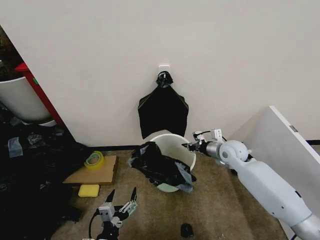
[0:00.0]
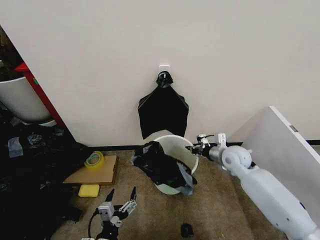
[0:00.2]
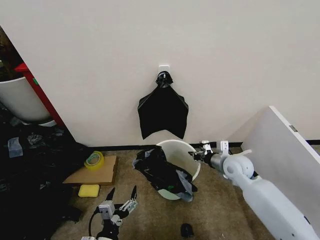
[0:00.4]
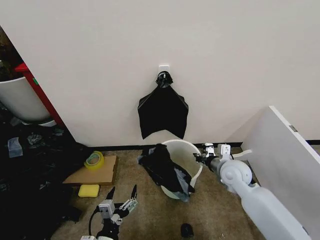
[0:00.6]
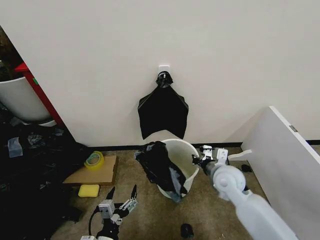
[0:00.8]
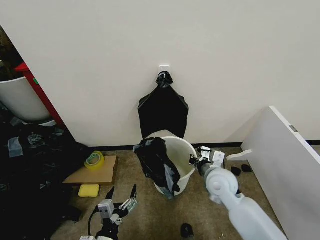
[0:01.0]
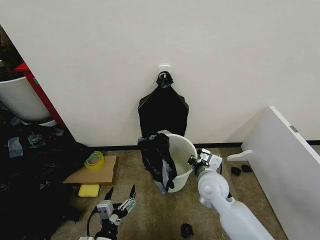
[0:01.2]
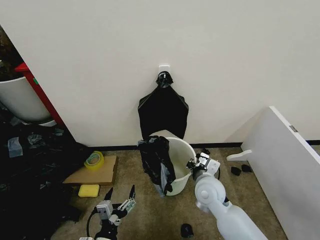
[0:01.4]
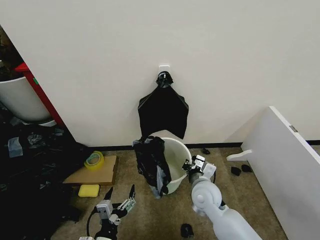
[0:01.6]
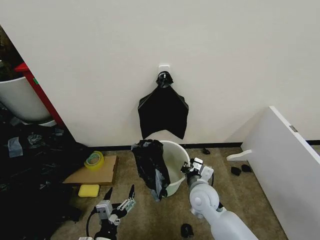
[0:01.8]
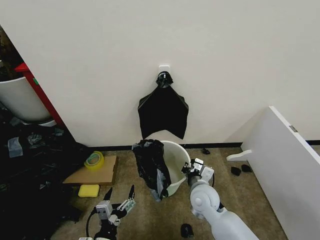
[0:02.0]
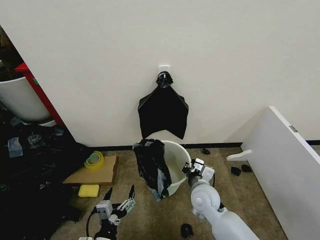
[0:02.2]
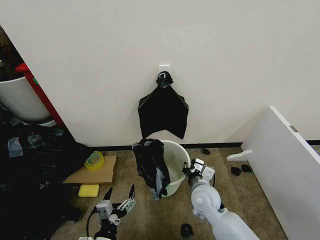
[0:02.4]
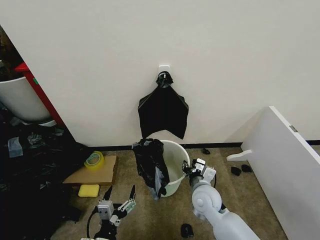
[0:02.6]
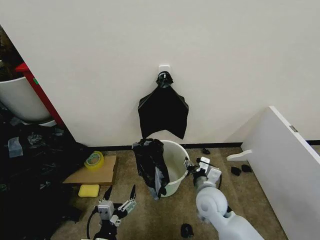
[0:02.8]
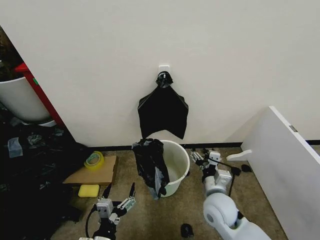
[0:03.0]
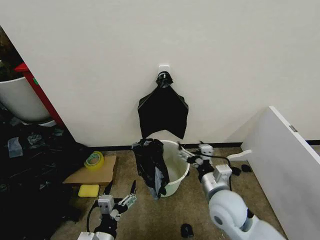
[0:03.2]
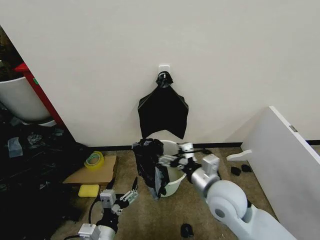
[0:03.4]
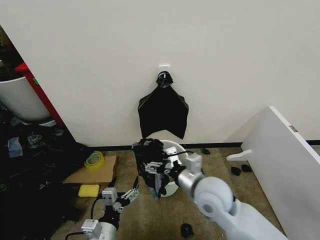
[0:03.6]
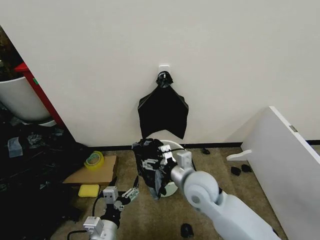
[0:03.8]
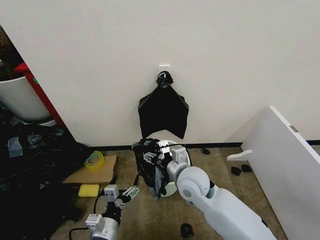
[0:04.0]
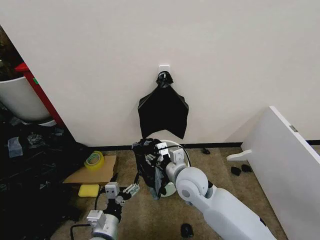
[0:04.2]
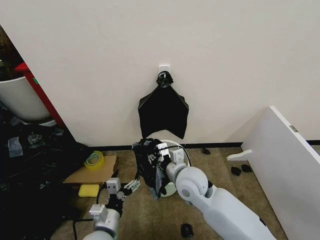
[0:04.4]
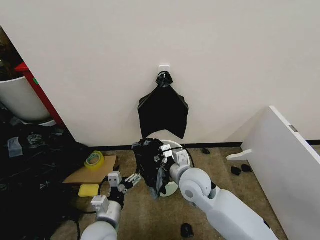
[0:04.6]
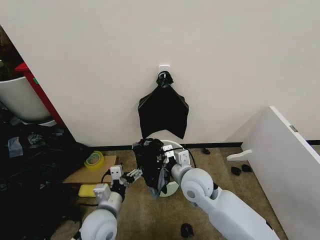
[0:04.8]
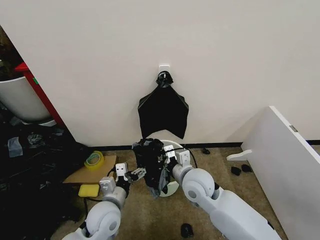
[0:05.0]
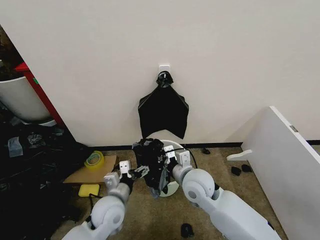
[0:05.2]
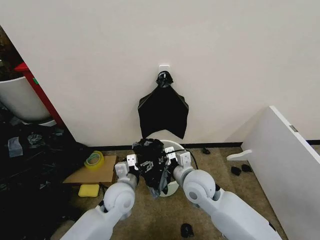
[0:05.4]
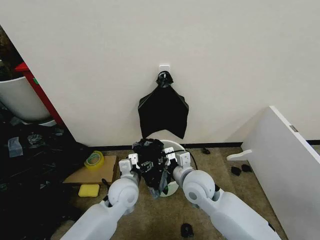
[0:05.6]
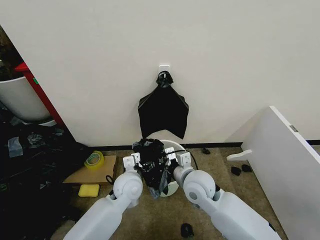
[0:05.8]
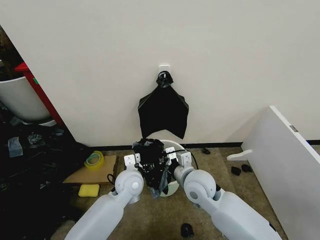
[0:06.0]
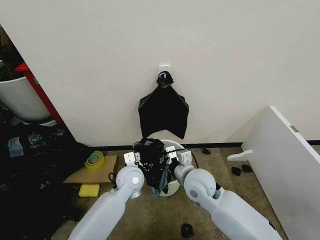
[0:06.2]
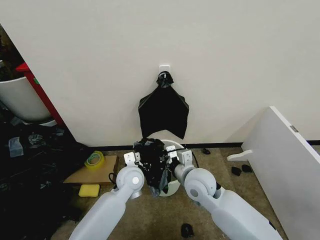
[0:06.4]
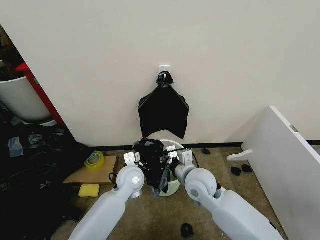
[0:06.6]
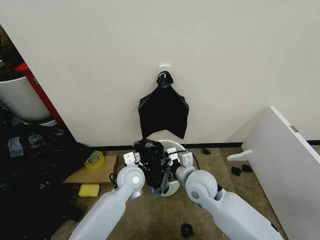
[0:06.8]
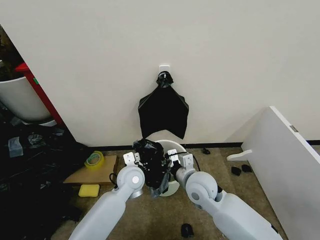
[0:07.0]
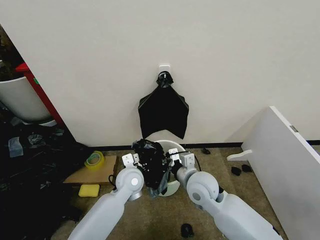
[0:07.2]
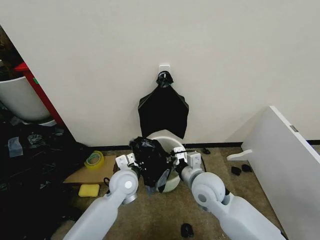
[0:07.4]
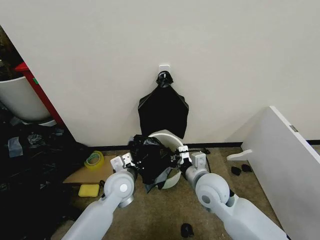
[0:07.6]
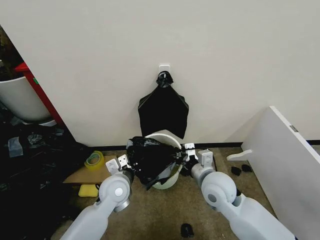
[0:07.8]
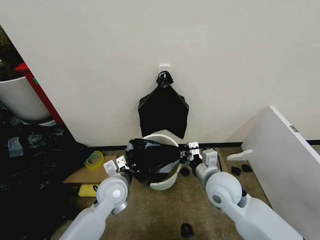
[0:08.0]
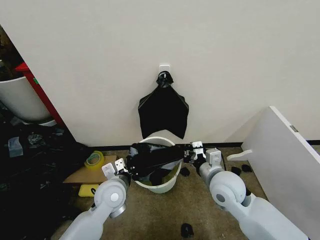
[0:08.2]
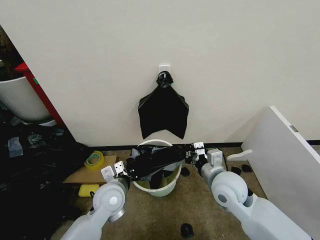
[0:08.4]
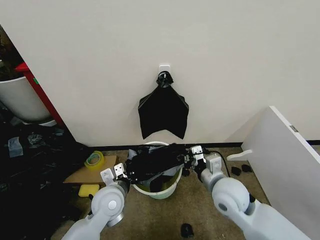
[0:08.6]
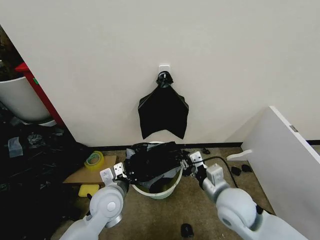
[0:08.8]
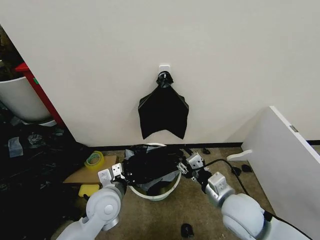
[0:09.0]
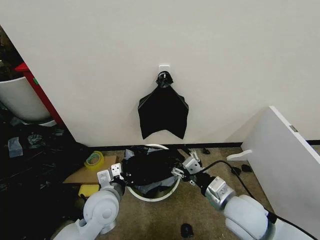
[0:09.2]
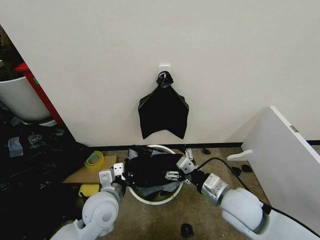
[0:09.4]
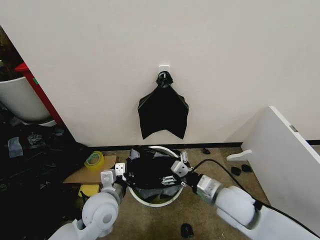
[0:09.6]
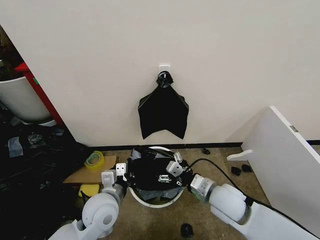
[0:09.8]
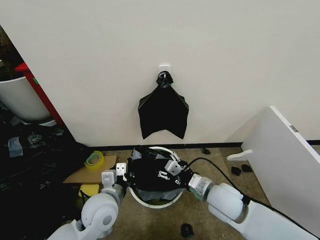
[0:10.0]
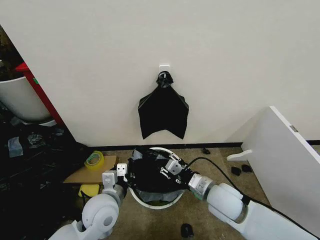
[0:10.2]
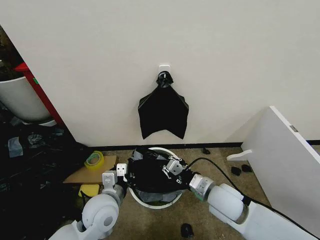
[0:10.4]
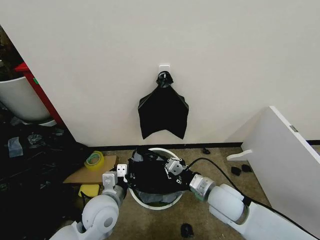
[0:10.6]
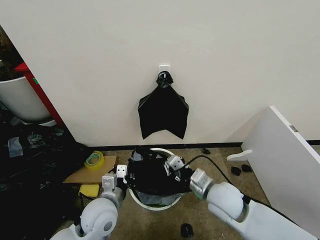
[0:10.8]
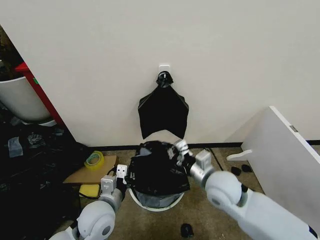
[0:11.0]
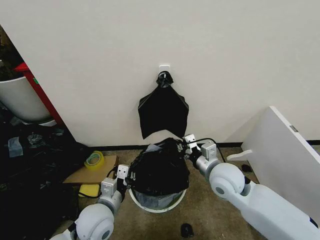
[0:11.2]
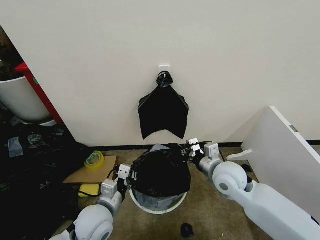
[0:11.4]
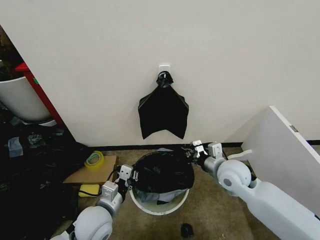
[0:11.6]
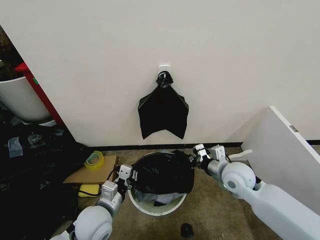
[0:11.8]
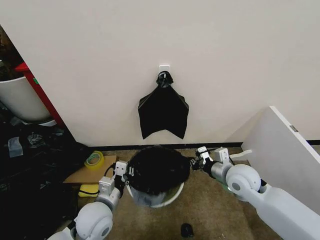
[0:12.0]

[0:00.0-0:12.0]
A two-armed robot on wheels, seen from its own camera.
Task of the whole recording: Place the garbage bag over the trash bin.
0:00.0 to 0:01.6: The right gripper moves backward and to the left, some 20 cm.
0:01.6 to 0:03.0: The right gripper moves roughly 5 cm, and opens its fingers.
0:03.0 to 0:04.4: The right gripper moves to the left, upward and forward, roughly 10 cm, and closes its fingers. The left gripper travels forward by roughly 5 cm.
0:04.4 to 0:06.0: The left gripper shifts some 20 cm forward.
0:06.0 to 0:07.6: The left gripper closes up.
0:07.6 to 0:09.0: The left gripper is displaced backward by approximately 5 cm. The right gripper shifts roughly 10 cm backward and to the right, and opens up.
0:09.0 to 0:10.4: The right gripper changes place by roughly 5 cm, and opens and closes again.
0:10.4 to 0:12.0: The right gripper travels to the right and forward by some 10 cm.

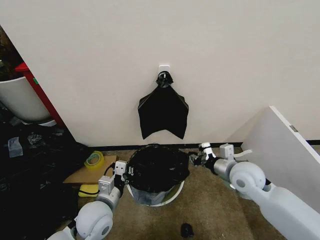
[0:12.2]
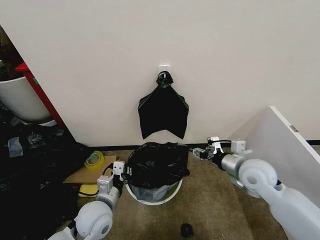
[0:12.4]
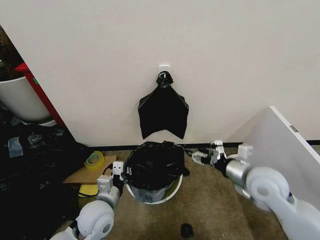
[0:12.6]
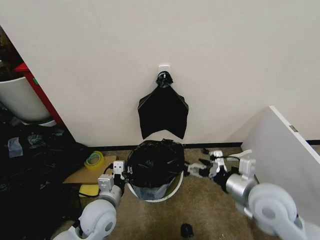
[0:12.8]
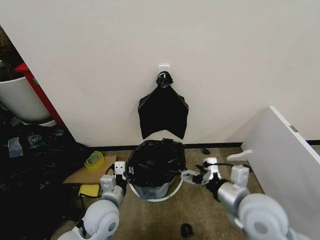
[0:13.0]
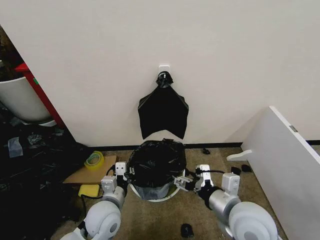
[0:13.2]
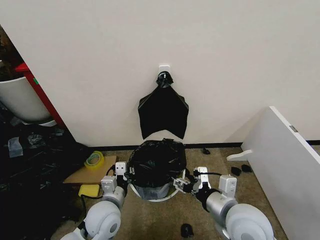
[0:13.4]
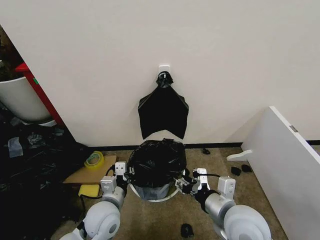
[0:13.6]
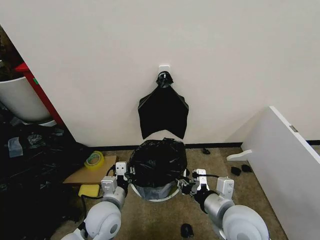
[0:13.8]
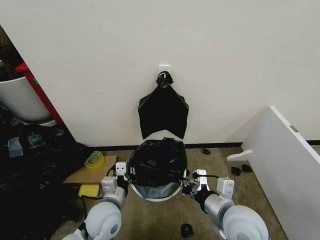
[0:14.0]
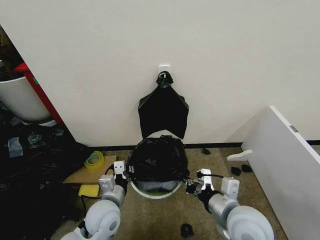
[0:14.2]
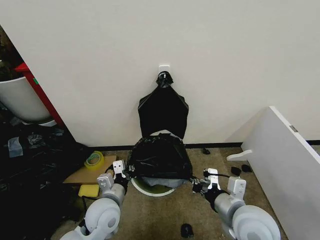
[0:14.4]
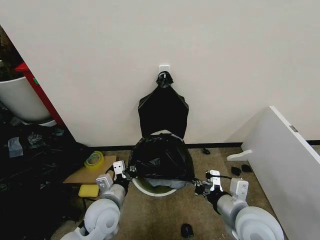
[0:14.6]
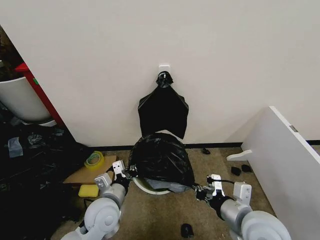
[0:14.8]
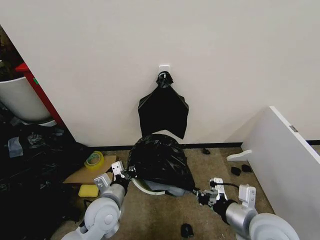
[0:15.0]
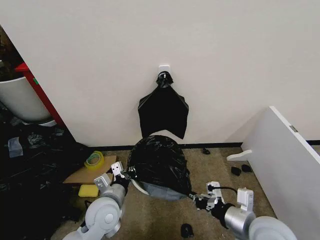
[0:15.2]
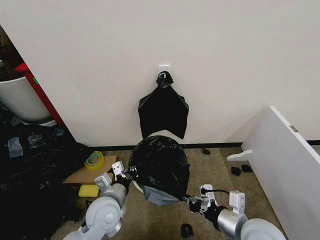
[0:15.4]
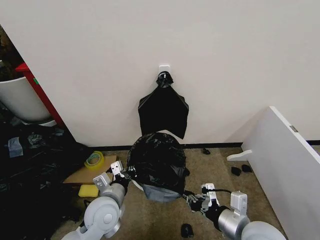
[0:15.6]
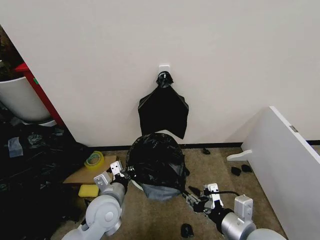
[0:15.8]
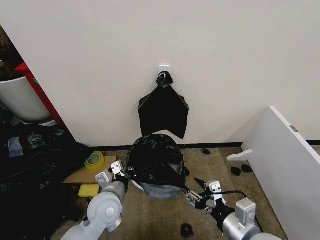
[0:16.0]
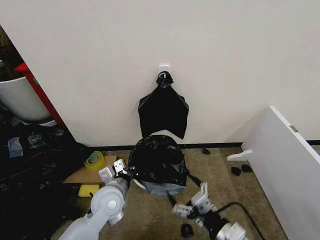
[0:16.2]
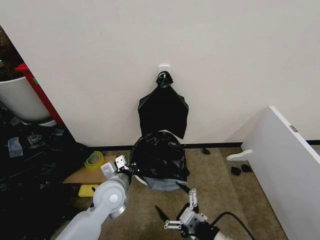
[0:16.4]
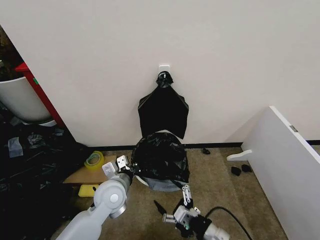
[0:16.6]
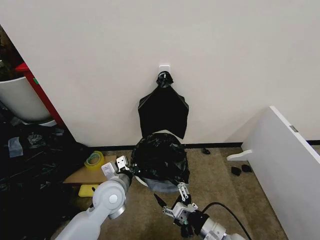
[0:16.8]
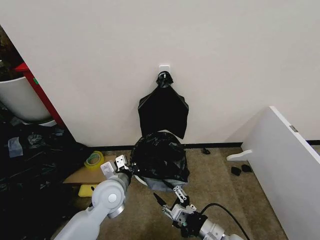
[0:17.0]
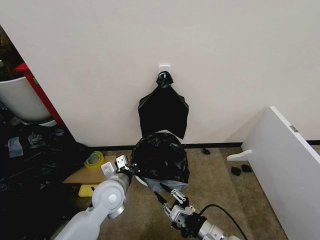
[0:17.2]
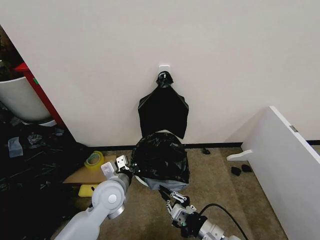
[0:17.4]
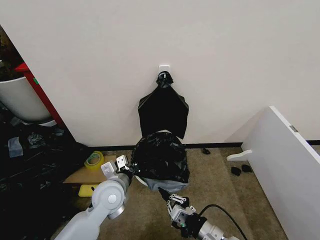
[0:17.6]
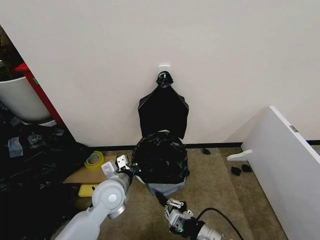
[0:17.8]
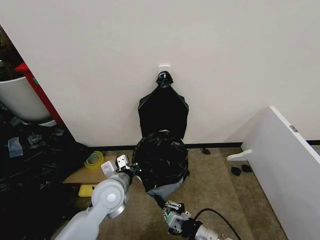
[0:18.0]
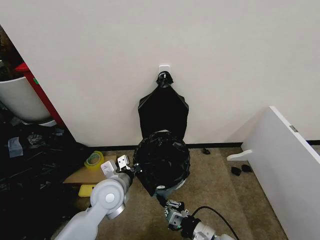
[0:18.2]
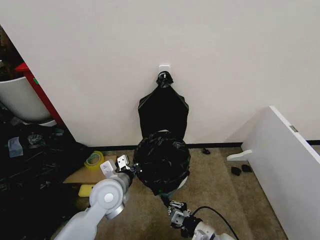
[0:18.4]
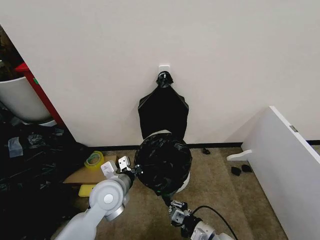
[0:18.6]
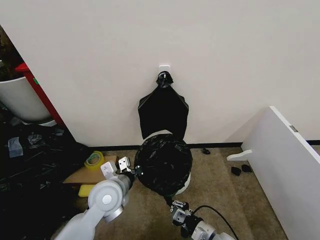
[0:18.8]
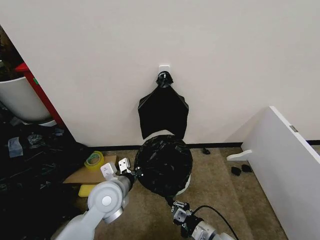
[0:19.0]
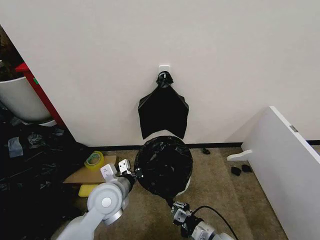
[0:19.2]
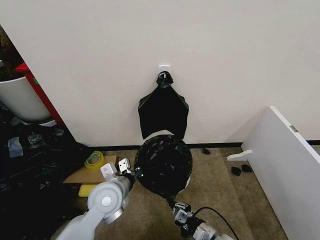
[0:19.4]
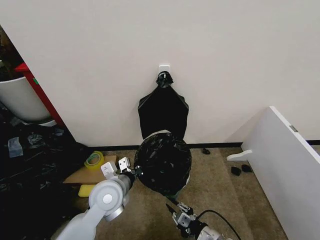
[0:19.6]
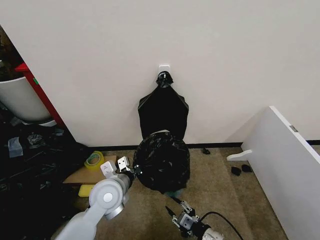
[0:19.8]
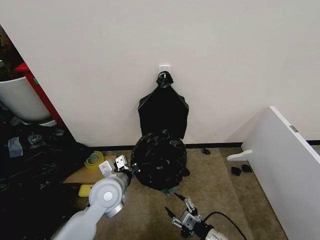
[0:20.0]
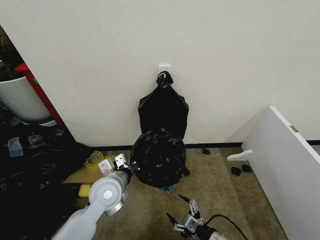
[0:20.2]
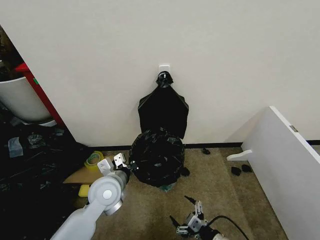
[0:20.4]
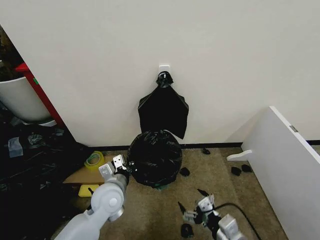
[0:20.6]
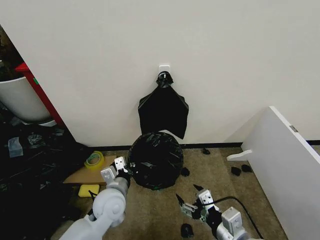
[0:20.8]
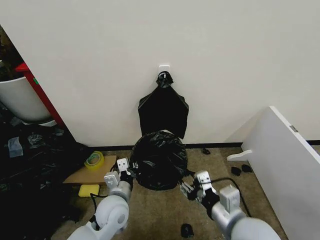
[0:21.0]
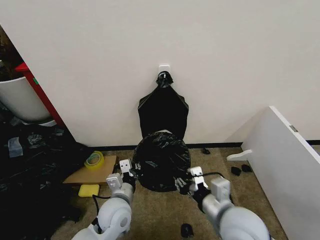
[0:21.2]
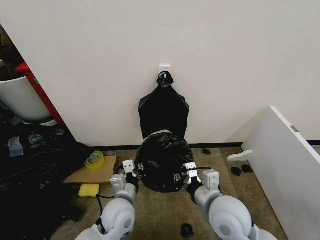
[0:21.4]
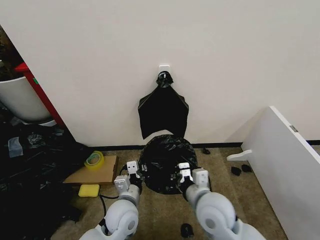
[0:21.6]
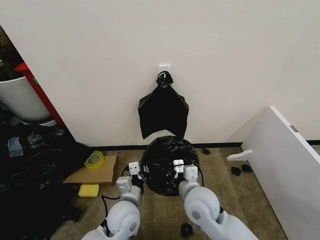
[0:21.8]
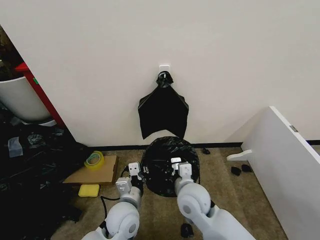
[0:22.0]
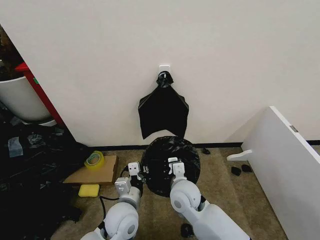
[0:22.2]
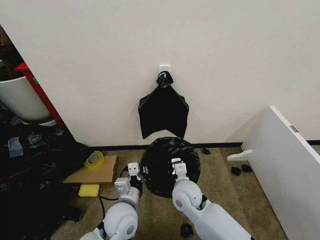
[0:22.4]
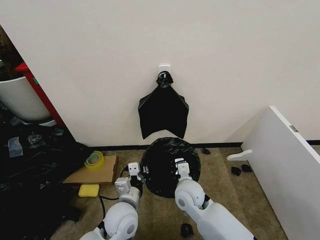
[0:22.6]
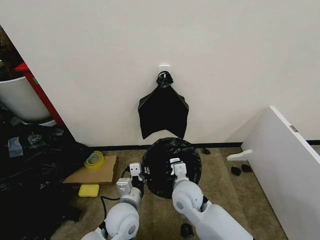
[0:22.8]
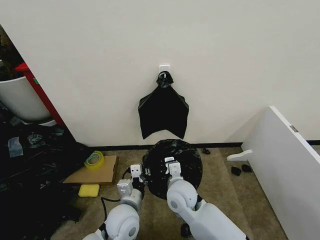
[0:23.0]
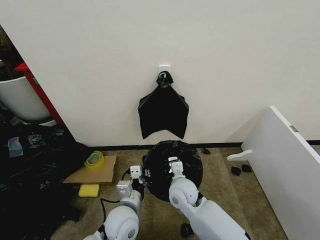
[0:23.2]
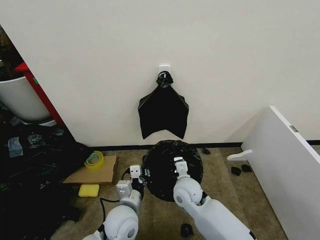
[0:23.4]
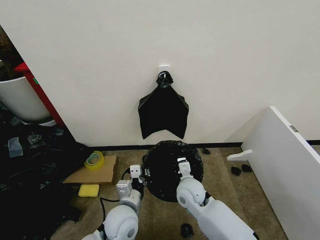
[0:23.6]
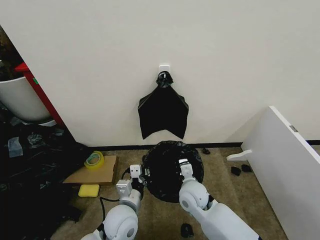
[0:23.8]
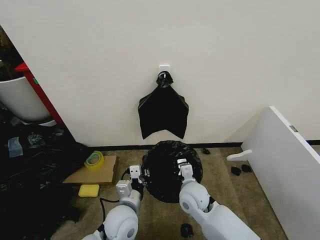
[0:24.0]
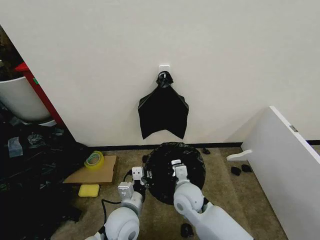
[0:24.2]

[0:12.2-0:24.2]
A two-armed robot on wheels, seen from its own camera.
Task of the whole recording: Place the garbage bag over the trash bin.
0:12.2 to 0:13.8: The right gripper moves backward and to the left, about 15 cm, and opens and closes again.
0:13.8 to 0:15.2: The right gripper goes roughly 5 cm to the right.
0:15.2 to 0:16.6: The left gripper moves some 5 cm, while the right gripper travels downward and to the left by approximately 10 cm, and opens up.
0:16.6 to 0:18.2: The right gripper goes roughly 5 cm downward, and closes its fingers.
0:18.2 to 0:19.8: The right gripper opens its fingers.
0:19.8 to 0:21.2: The left gripper heads downward, covering some 5 cm; the right gripper heads upward, covering roughly 25 cm, and opens and closes again.
0:21.2 to 0:22.6: The right gripper heads forward, downward and to the left, covering roughly 20 cm, and closes its fingers.
0:22.6 to 0:24.2: The grippers make only small movements.
